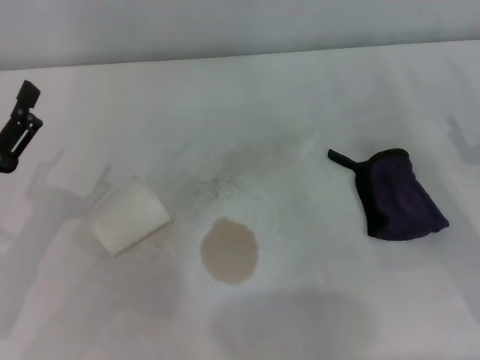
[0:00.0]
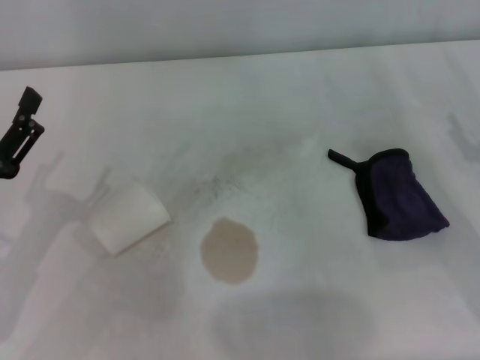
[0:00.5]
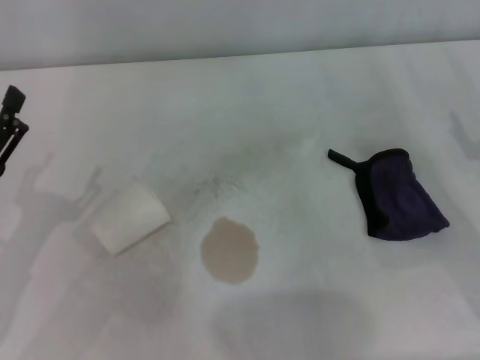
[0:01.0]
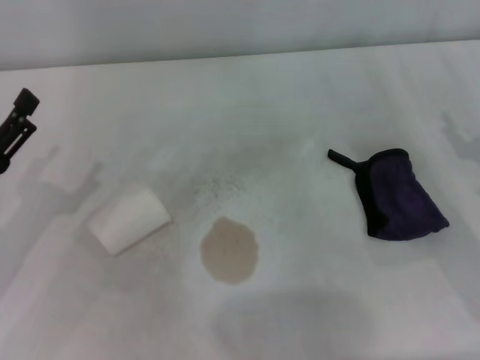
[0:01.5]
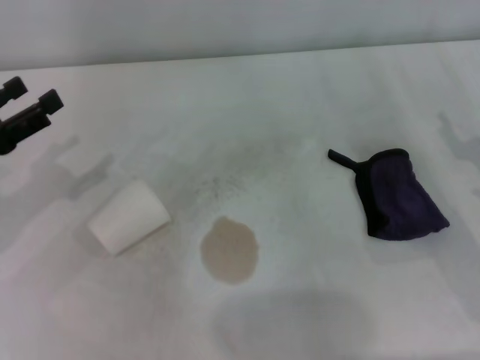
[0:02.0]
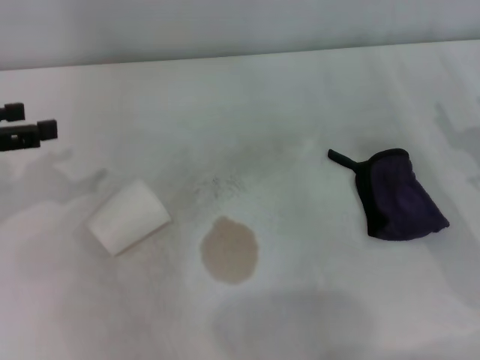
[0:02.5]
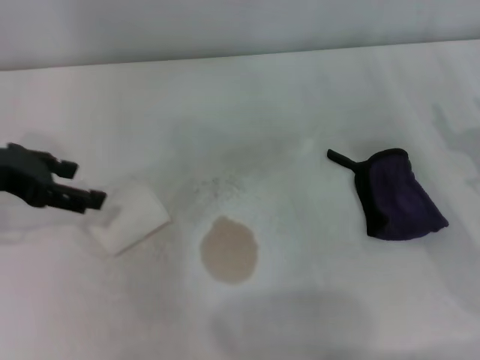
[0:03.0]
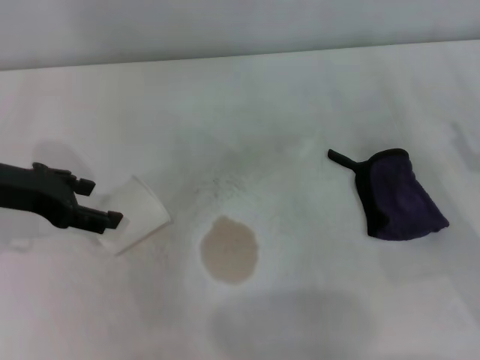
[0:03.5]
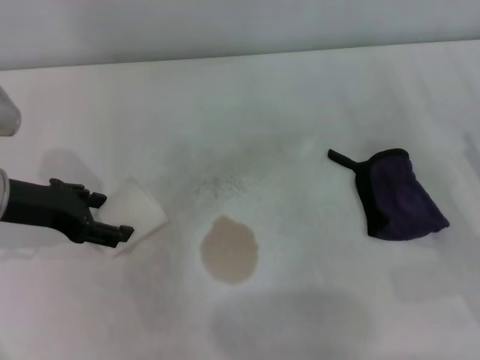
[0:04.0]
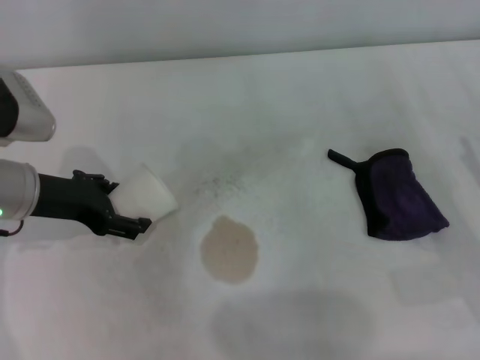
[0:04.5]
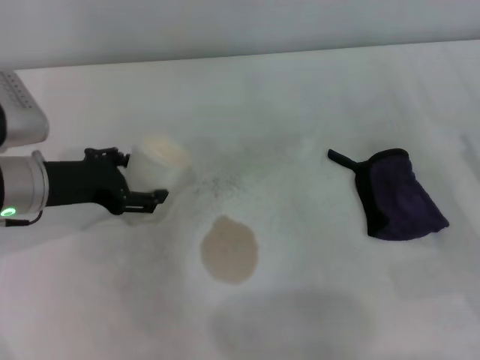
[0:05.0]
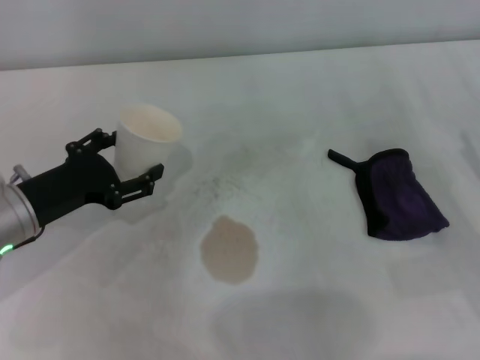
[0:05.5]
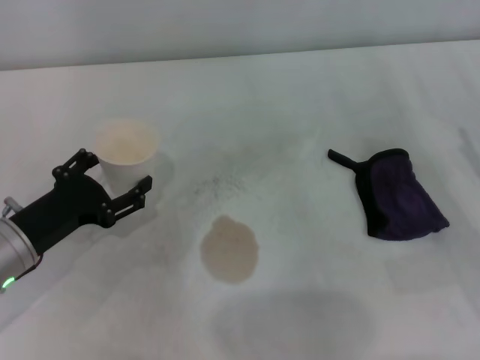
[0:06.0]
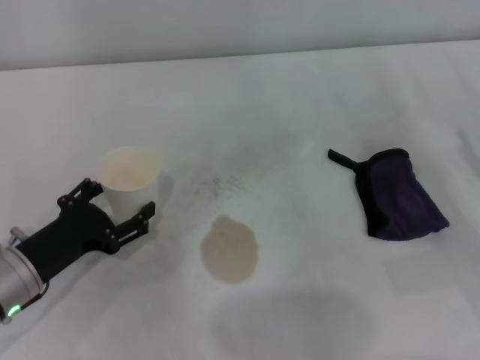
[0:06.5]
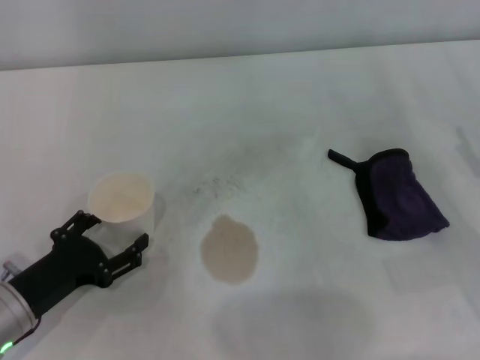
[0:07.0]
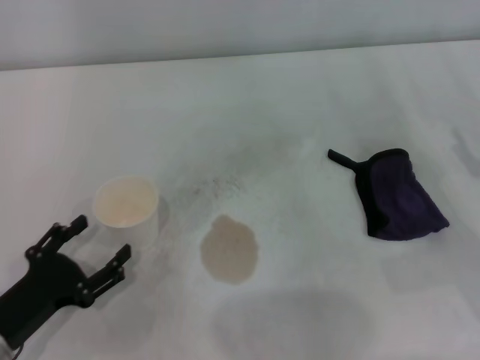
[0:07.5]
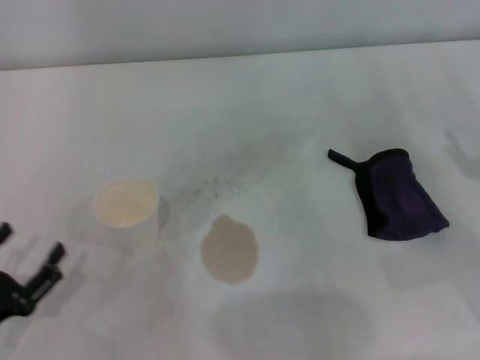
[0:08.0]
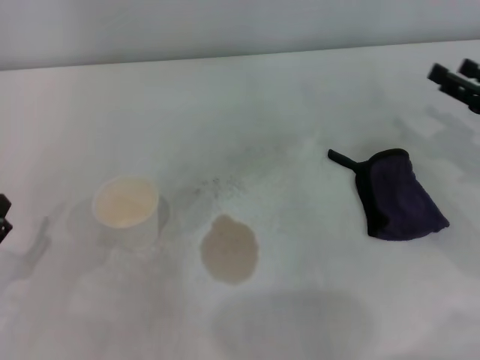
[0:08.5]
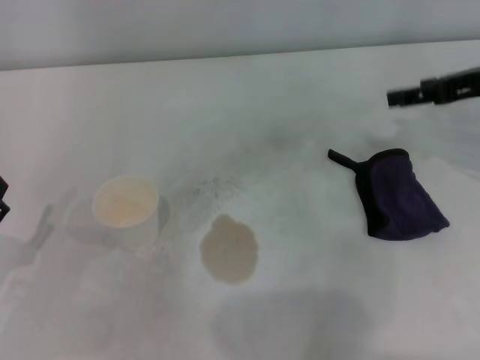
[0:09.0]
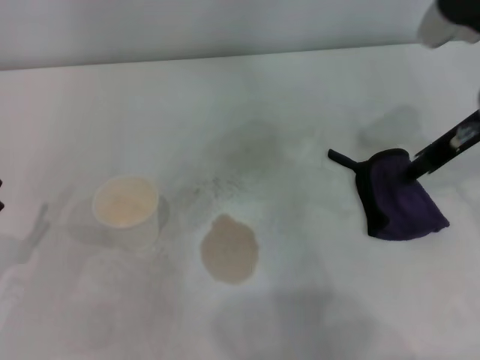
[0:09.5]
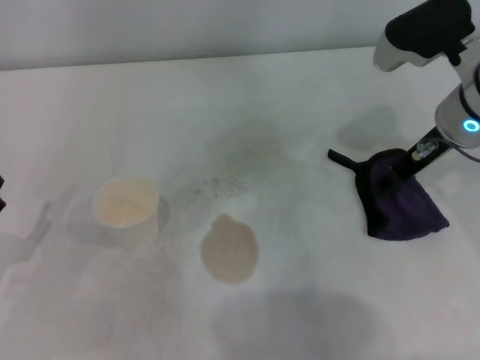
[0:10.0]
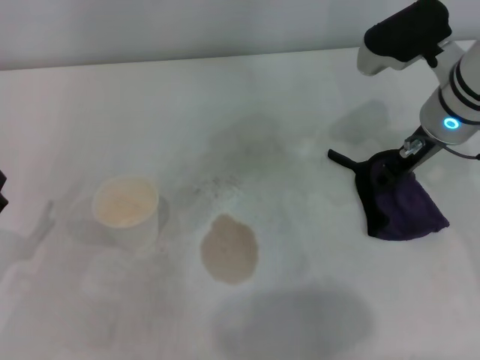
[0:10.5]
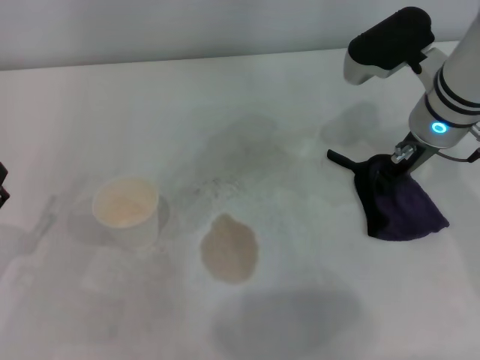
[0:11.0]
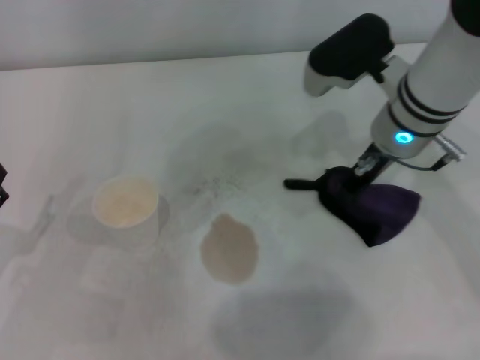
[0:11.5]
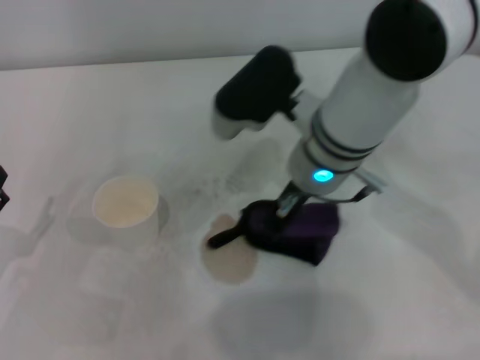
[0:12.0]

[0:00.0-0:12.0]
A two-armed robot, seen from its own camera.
Step, 0:00.0 to 0:03.5: Grasp the paper cup with the left gripper.
Step, 0:04.0 to 0:07.0: Stand the paper cup upright with the left gripper.
Step, 0:07.5 to 0:11.0: Grasp the rag with the right gripper.
0:00.0 to 0:02.0: The left gripper shifts approximately 5 cm forward.
0:02.0 to 0:04.0: The left gripper goes some 5 cm to the right.
0:04.0 to 0:06.0: The left gripper heads downward and backward, covering about 10 cm.
0:06.0 to 0:08.0: The left gripper shifts about 15 cm backward and to the left.
0:08.0 to 0:10.0: The right gripper heads forward, to the left and upward, covering about 20 cm. The left gripper moves some 5 cm.
0:10.0 to 0:12.0: The right gripper moves to the left, about 15 cm, and closes.

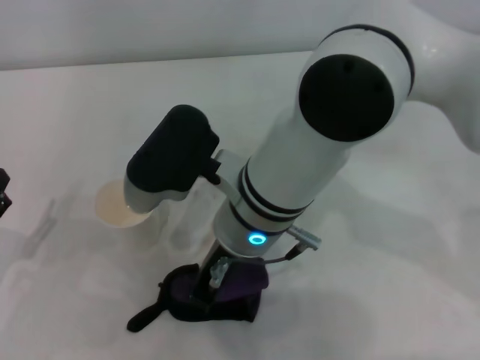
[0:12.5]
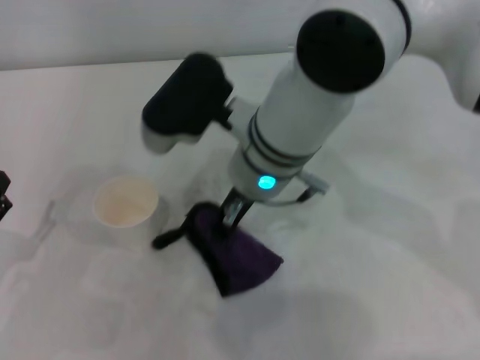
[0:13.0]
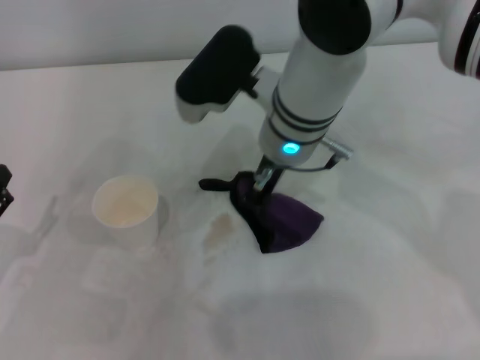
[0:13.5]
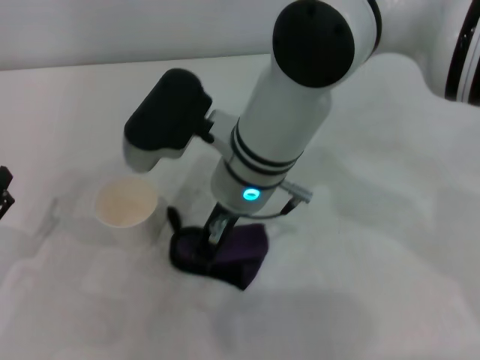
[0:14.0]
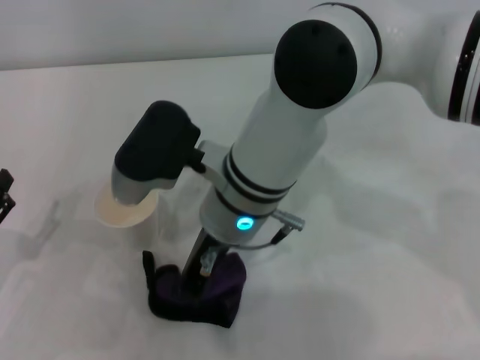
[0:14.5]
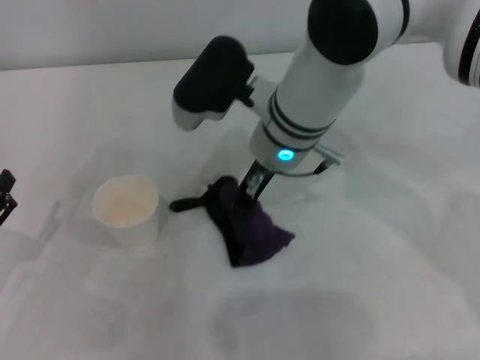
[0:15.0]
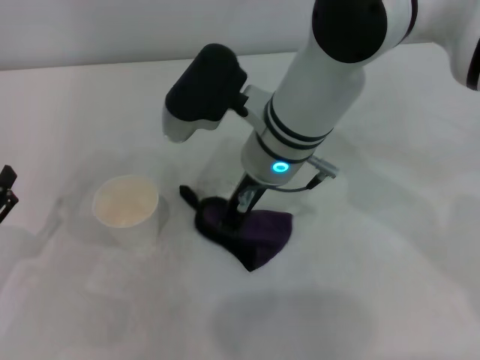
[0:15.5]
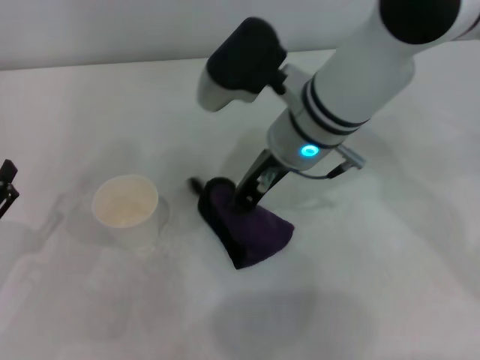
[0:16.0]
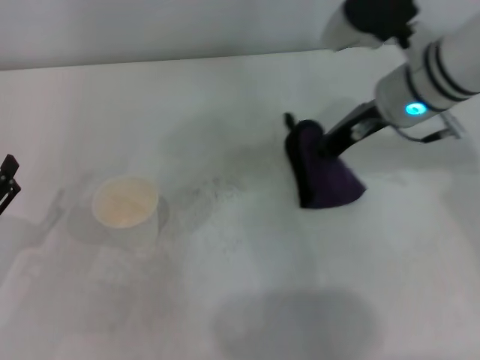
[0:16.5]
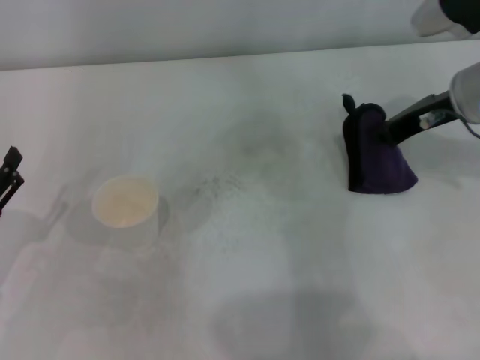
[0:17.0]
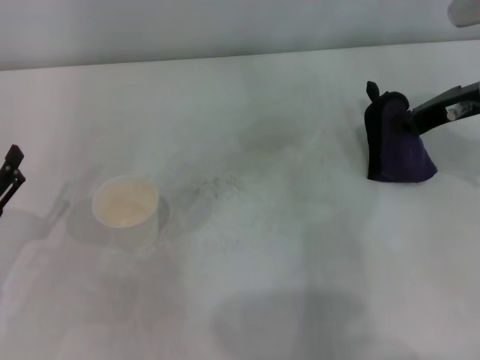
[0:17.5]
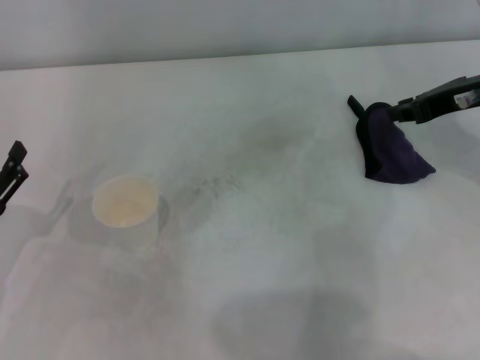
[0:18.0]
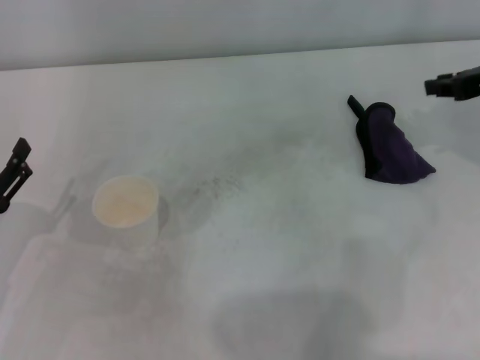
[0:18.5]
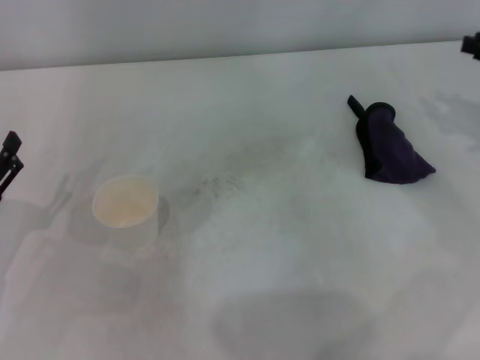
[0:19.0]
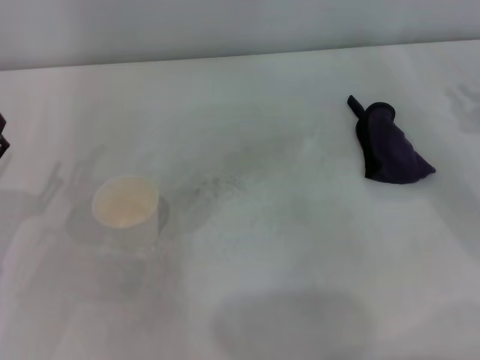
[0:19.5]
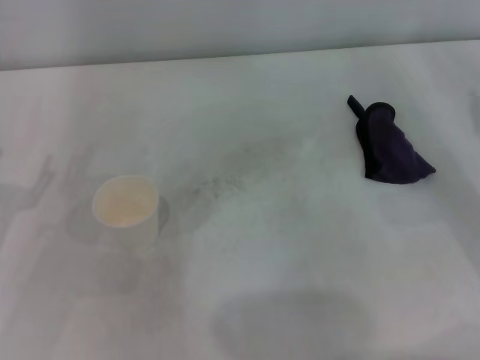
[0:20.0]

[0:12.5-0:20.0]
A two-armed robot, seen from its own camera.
Step, 0:12.5 to 0:16.5: Wipe the stains off the table with the right gripper.
Step, 0:17.0 to 0:17.5: Place the rag on the table with the right gripper.
0:12.5 to 0:14.5: The right gripper travels forward and back again, some 10 cm each way.
0:14.5 to 0:16.5: The right gripper goes some 20 cm to the right.
0:16.5 to 0:18.0: The right gripper moves to the right, approximately 10 cm.
0:18.0 to 0:20.0: The right gripper shifts approximately 15 cm to the right, downward and backward.

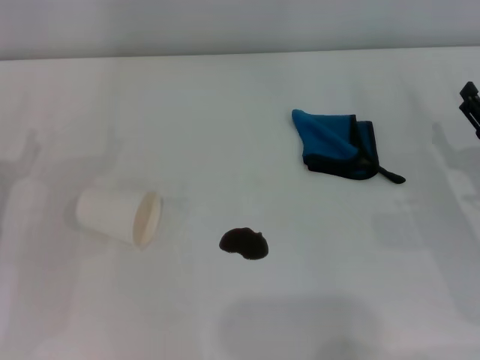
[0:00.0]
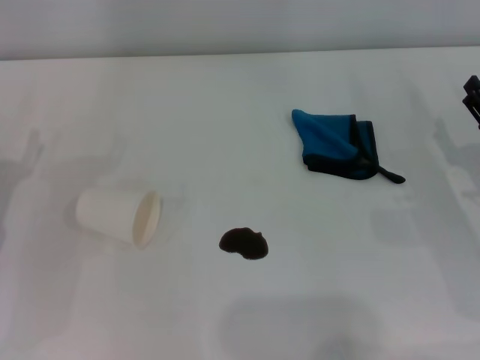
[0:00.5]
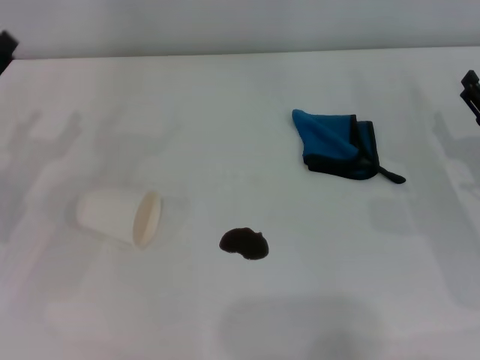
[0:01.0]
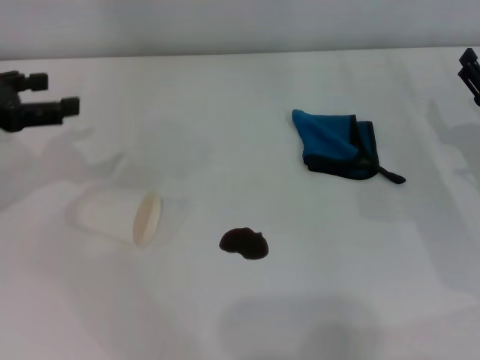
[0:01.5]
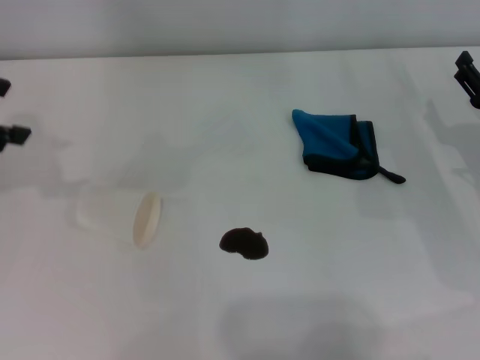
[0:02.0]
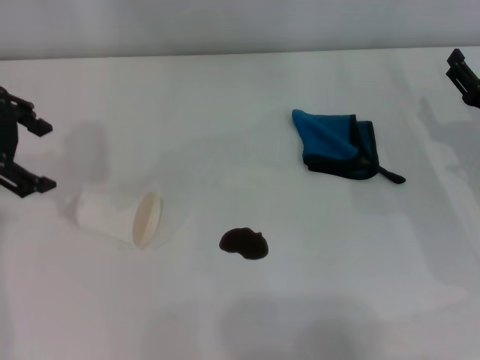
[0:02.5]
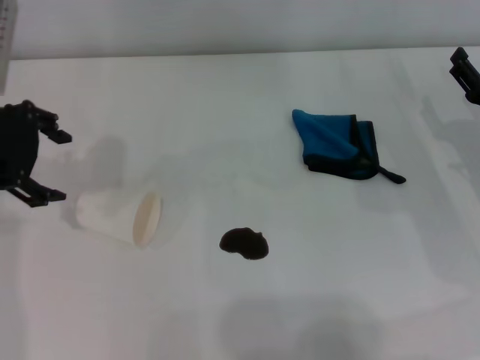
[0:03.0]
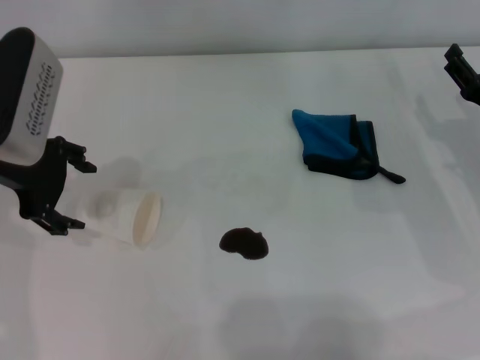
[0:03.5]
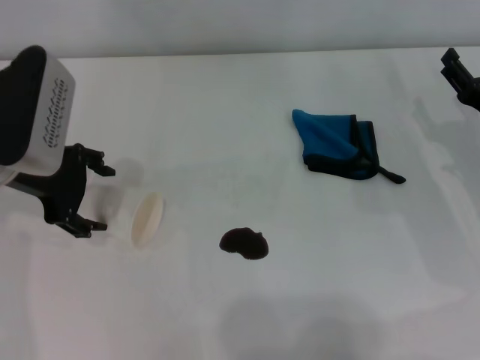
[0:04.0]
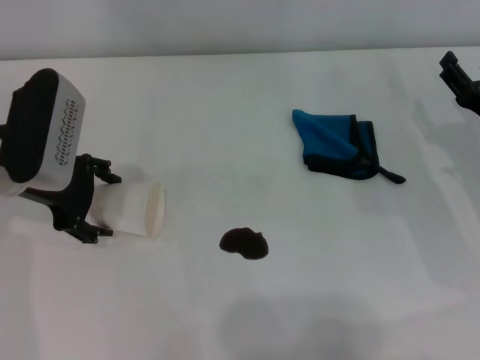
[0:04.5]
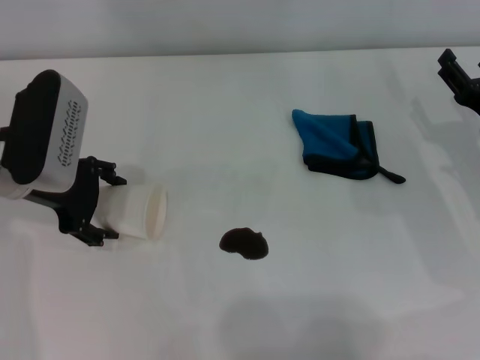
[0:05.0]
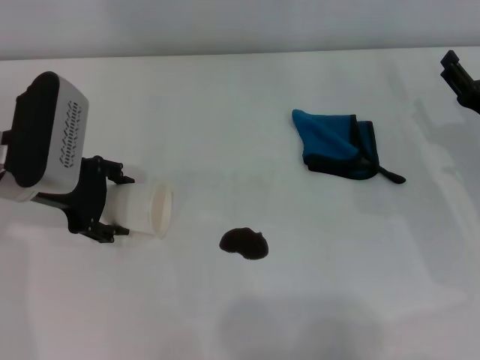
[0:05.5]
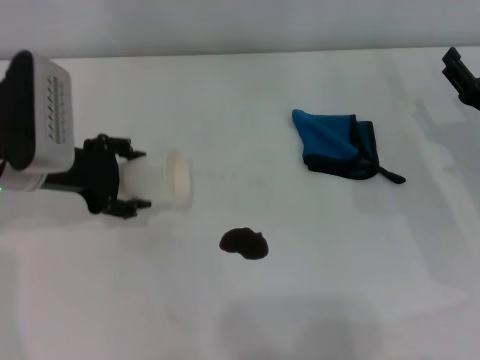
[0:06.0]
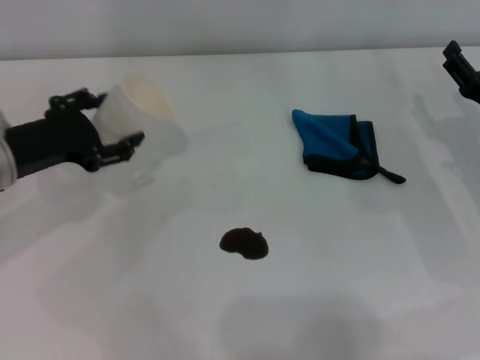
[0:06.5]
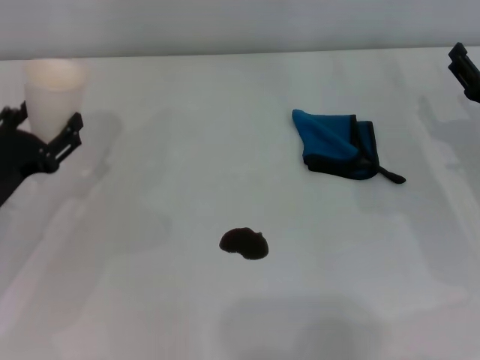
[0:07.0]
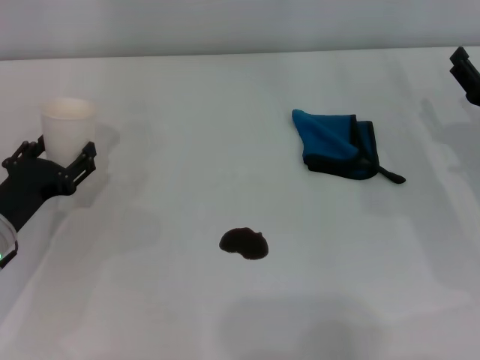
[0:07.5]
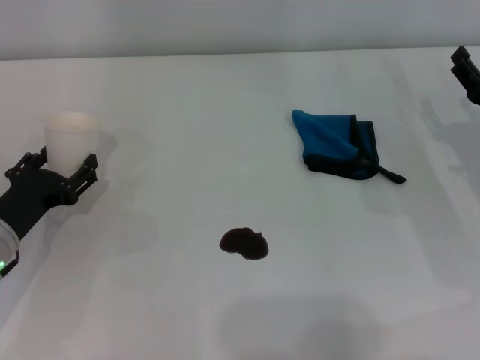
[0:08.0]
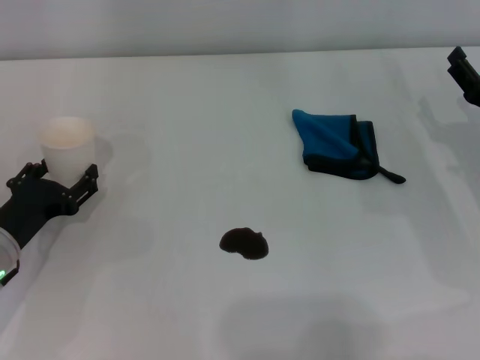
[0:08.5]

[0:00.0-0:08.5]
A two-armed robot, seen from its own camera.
Step, 0:00.0 to 0:05.0: Grasp the paper cup with the left gripper.
0:02.0 to 0:04.0: The left gripper moves to the right and downward, some 15 cm.
0:04.0 to 0:06.5: The left gripper shifts by some 5 cm.
0:06.5 to 0:08.5: The left gripper goes approximately 10 cm downward and backward.
